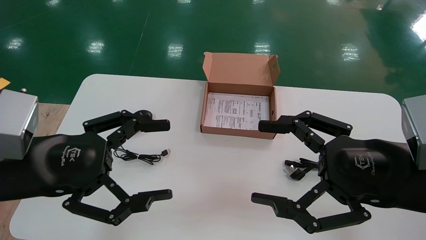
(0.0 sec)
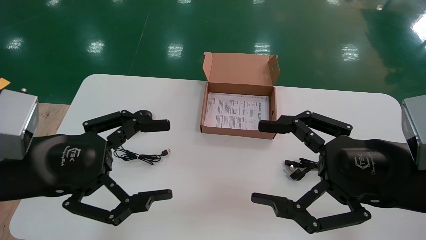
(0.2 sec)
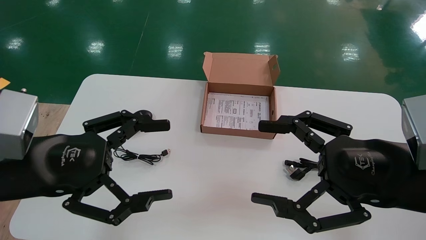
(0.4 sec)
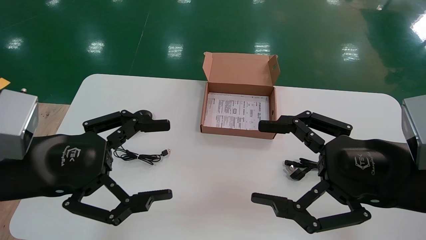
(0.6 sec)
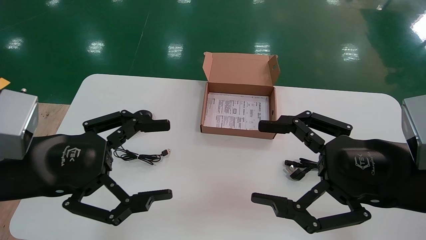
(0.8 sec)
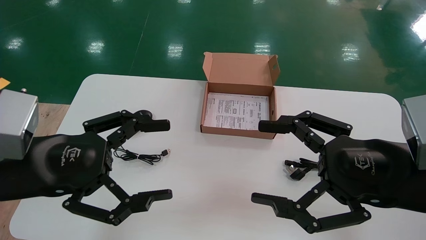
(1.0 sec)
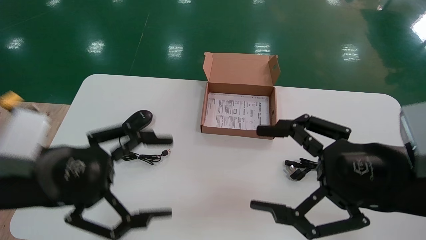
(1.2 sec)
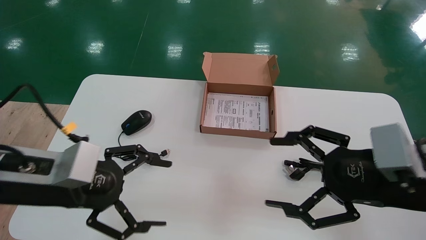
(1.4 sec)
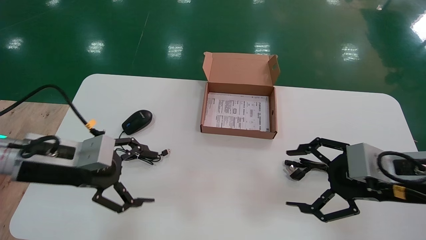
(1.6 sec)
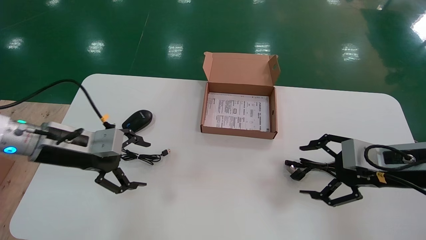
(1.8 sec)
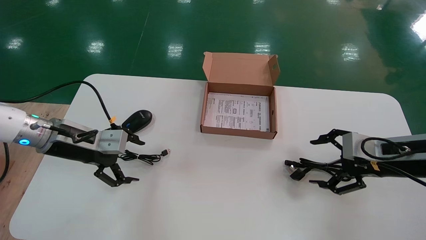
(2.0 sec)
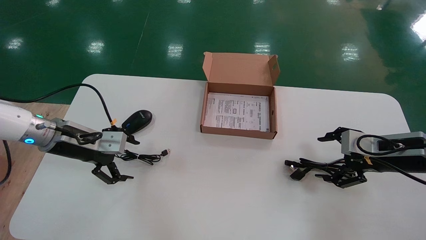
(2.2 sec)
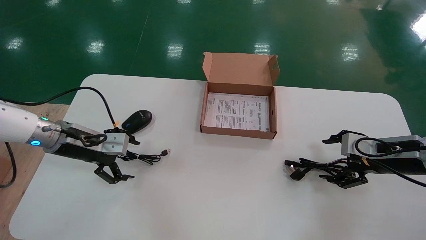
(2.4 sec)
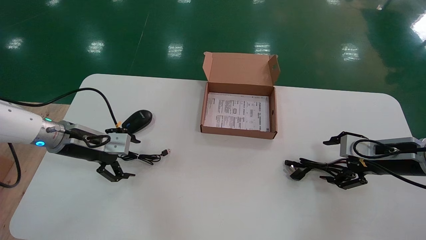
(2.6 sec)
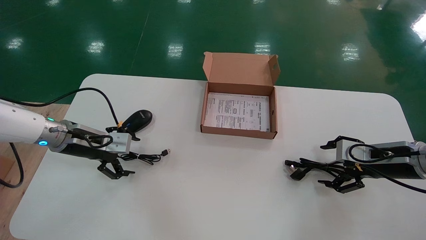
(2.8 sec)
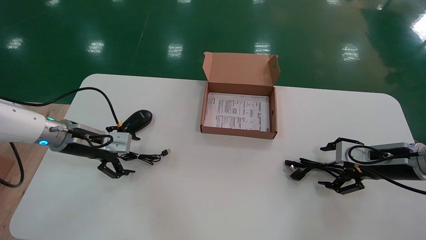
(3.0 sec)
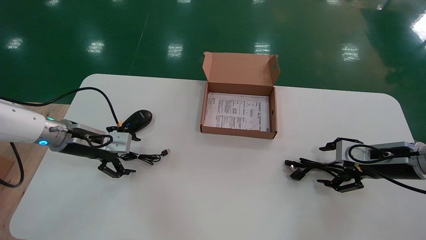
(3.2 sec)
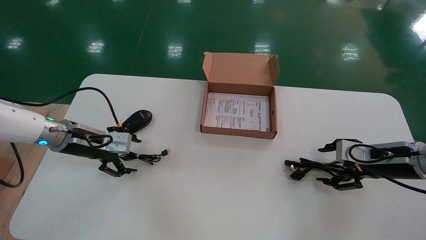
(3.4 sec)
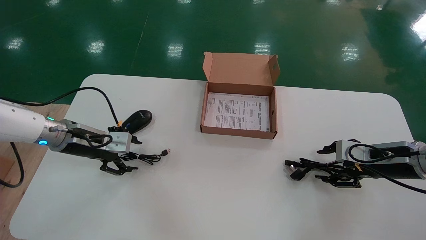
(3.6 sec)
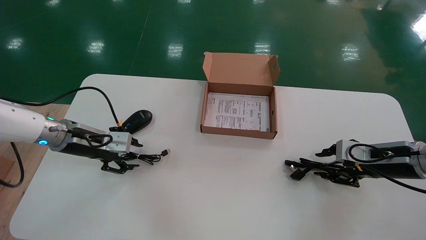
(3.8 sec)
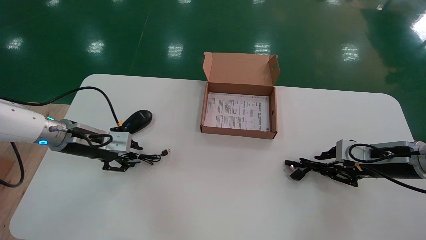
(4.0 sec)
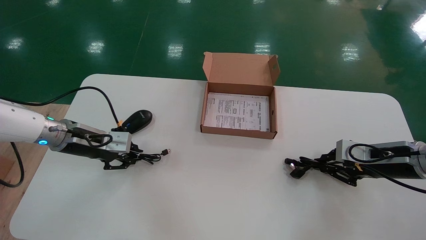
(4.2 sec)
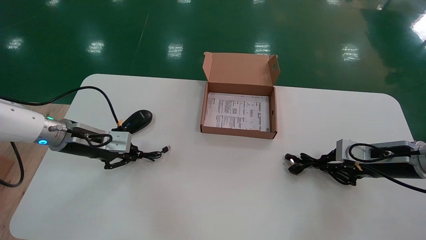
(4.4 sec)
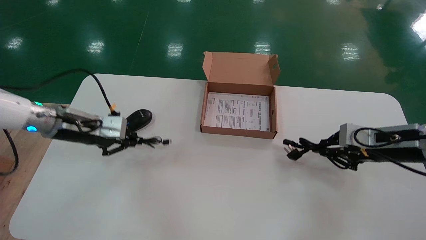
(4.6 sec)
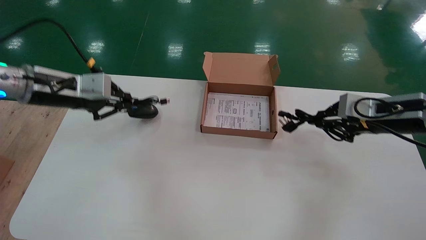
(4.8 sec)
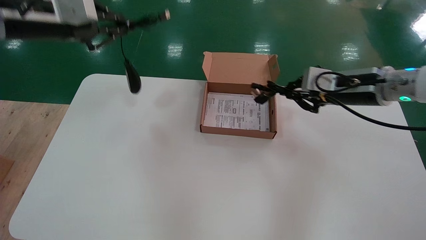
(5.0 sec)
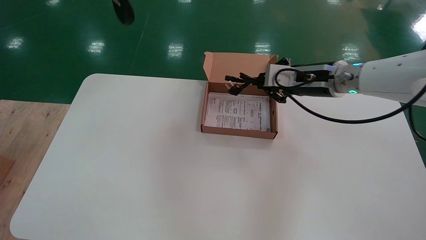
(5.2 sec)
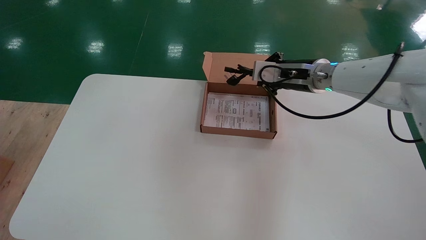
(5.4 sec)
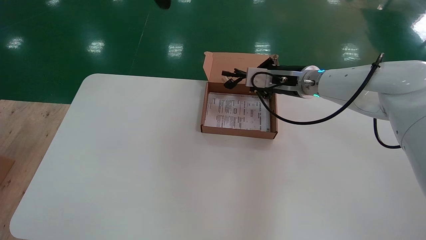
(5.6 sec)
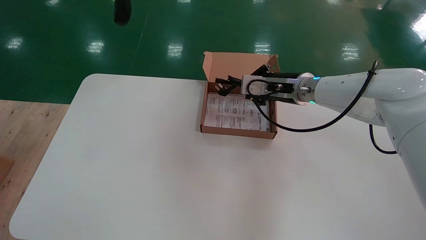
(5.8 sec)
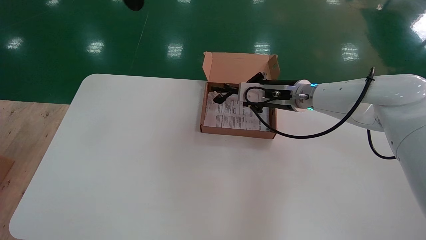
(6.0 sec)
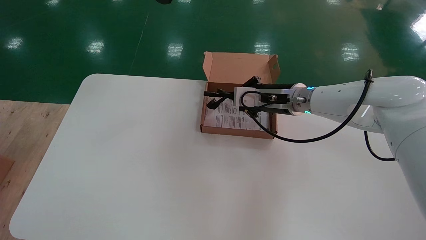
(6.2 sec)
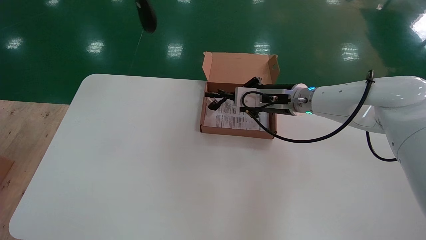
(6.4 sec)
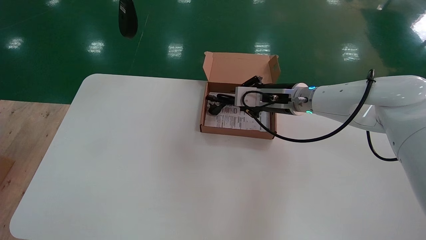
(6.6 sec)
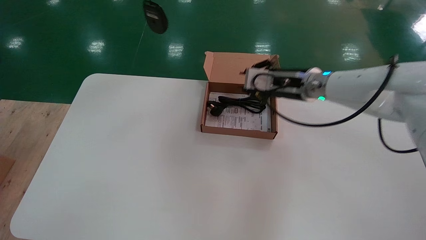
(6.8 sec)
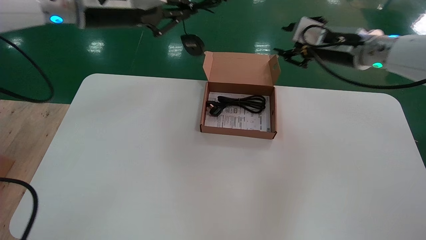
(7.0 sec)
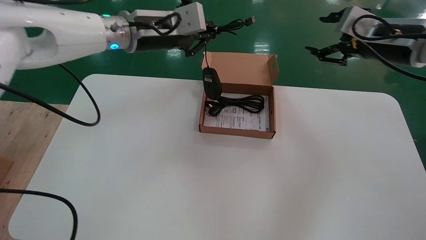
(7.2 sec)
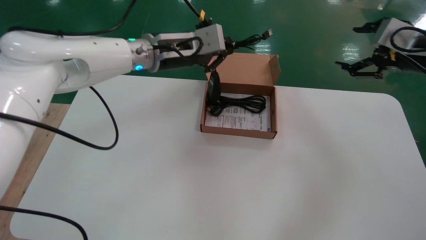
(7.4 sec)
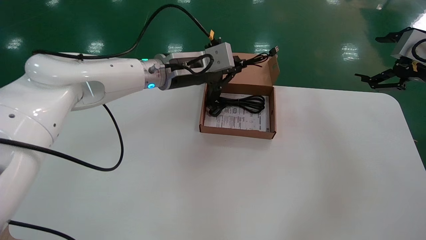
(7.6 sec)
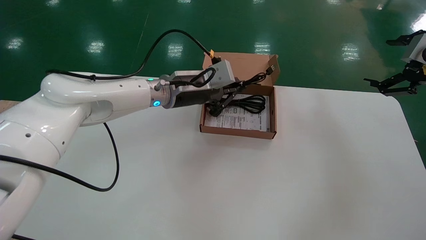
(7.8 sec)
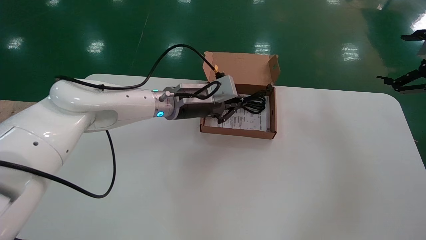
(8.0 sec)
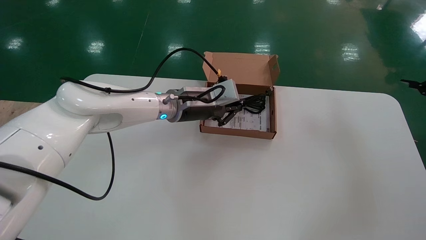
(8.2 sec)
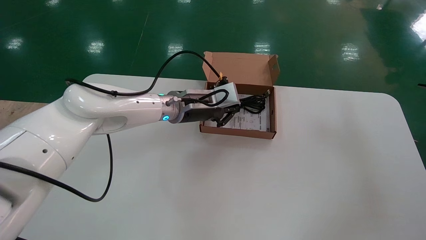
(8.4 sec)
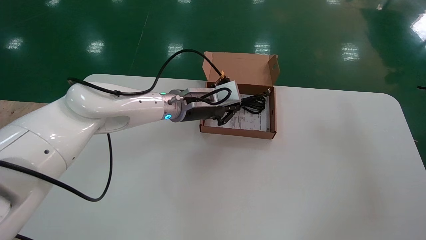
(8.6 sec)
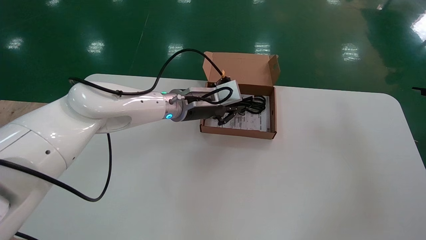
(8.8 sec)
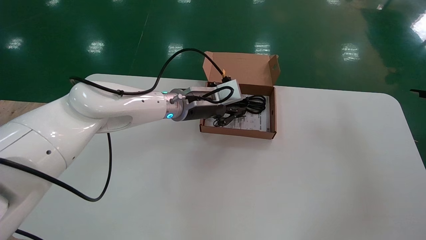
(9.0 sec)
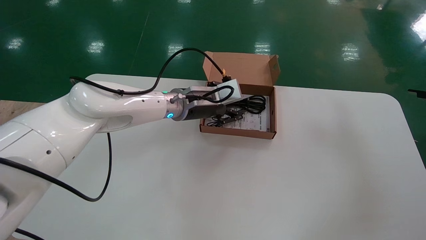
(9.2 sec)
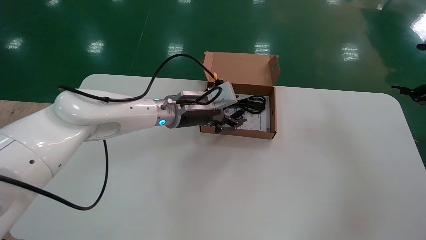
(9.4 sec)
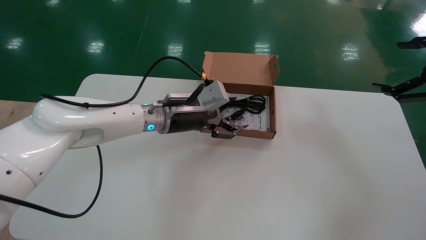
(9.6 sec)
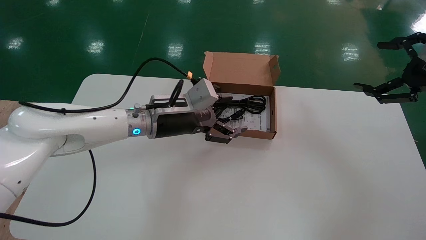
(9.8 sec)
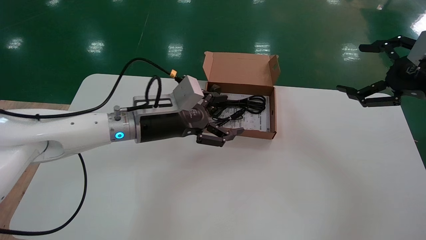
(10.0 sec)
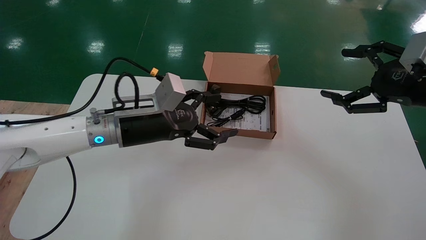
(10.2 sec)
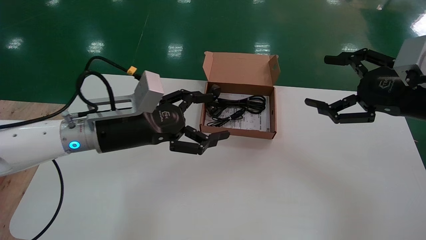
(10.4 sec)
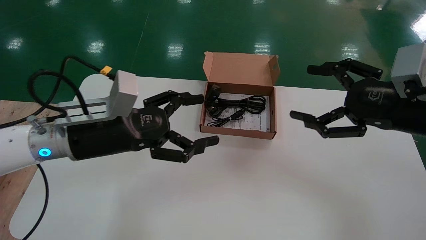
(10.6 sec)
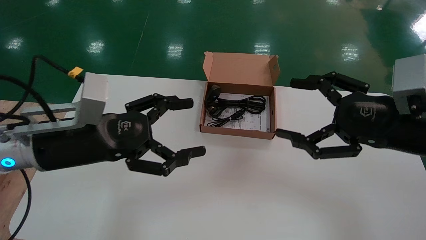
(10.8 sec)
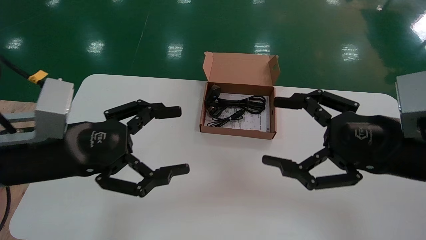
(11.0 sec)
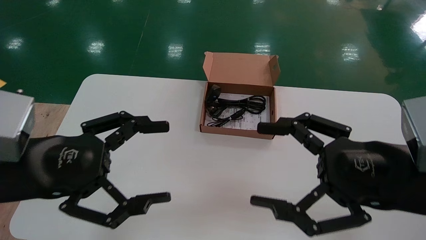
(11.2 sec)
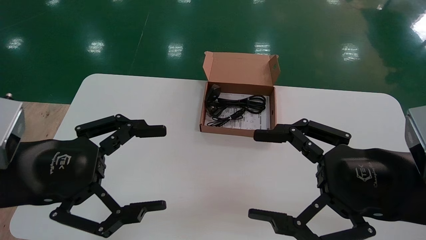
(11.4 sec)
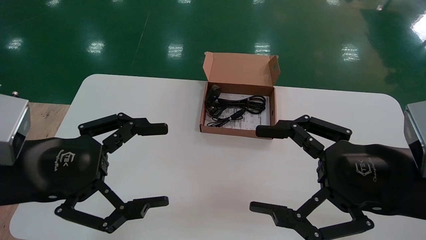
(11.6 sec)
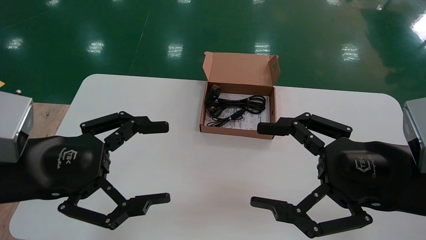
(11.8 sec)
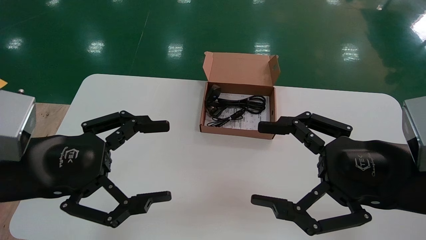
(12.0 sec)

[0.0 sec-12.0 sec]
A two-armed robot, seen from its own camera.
Step, 1.4 sec to 4.2 sec: Simultaneously pick up the mouse and power cord from the accessory packaging area.
Step, 4.4 sec to 9.4 sec: Place the mouse and power cord into the box.
0.0 sec to 1.6 sec: The left gripper is displaced forward by approximately 10 cm. Meanwhile the right gripper shifts approximately 10 cm forward and to the right.
1.6 sec to 3.0 sec: The left gripper heads forward, covering approximately 10 cm, while the right gripper travels forward, to the right and downward by roughly 15 cm.
3.0 sec to 4.4 sec: The left gripper closes; the right gripper closes.
4.4 sec to 6.0 sec: The left gripper heads upward, covering some 35 cm. Meanwhile the right gripper shifts about 25 cm to the left and forward.
6.0 sec to 7.6 sec: The left gripper moves downward, to the right and forward, about 30 cm, while the right gripper travels to the right by approximately 25 cm, and opens its fingers.
7.6 sec to 9.0 sec: The right gripper goes roughly 10 cm to the right and backward. The left gripper is displaced downward by approximately 5 cm.
9.0 sec to 10.4 sec: The right gripper is displaced to the left by some 15 cm. Meanwhile the left gripper goes some 20 cm backward and to the left, and opens its fingers.
10.4 sec to 12.0 sec: The right gripper heads backward, to the left and downward, covering approximately 15 cm. Meanwhile the left gripper goes approximately 15 cm backward and to the left.

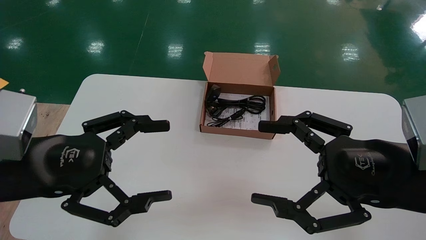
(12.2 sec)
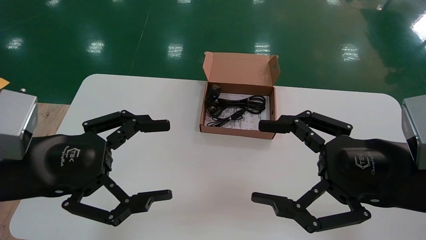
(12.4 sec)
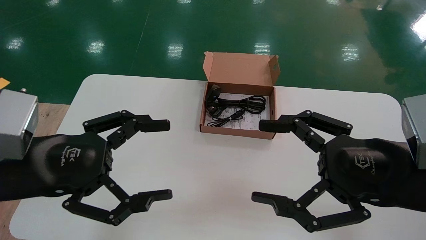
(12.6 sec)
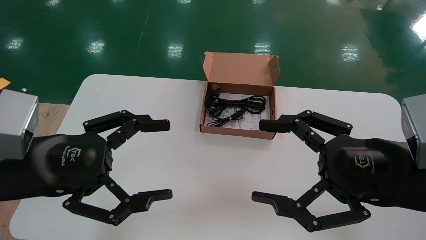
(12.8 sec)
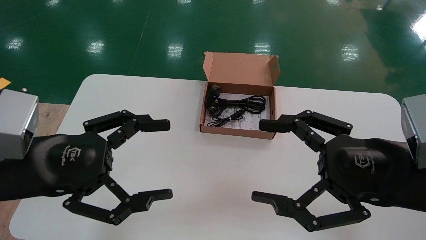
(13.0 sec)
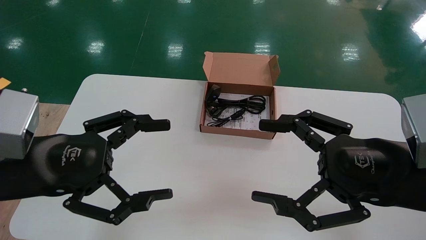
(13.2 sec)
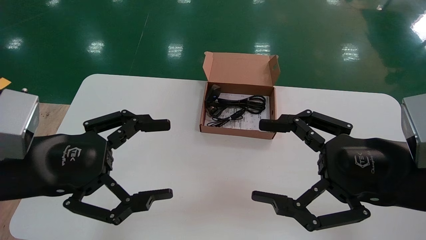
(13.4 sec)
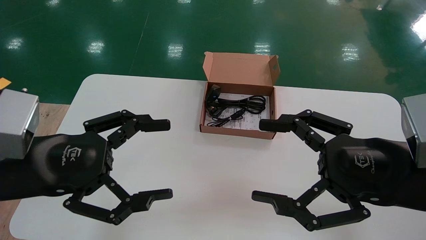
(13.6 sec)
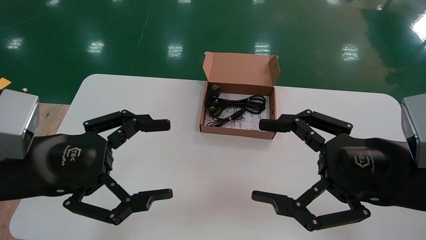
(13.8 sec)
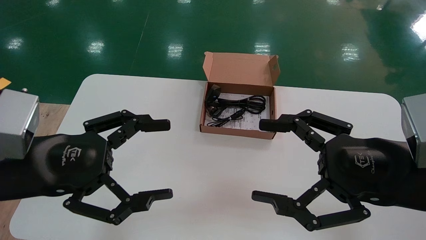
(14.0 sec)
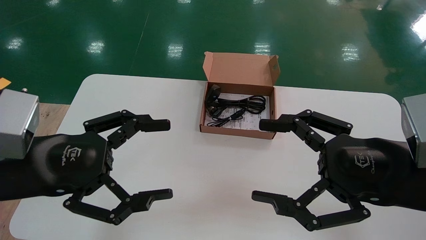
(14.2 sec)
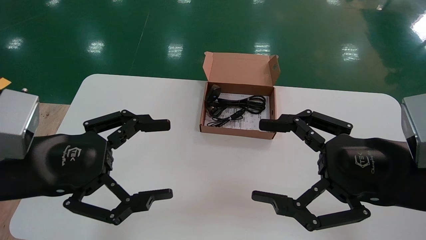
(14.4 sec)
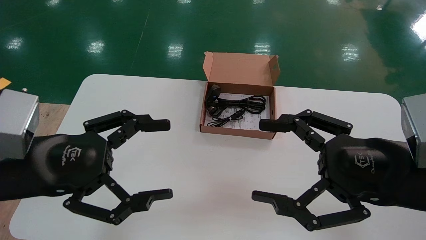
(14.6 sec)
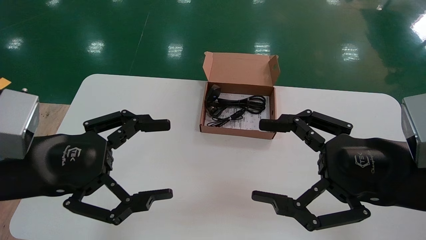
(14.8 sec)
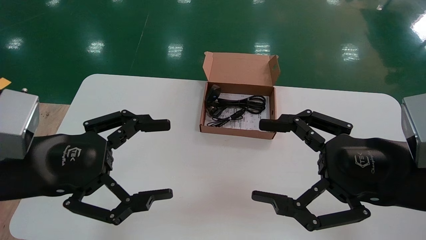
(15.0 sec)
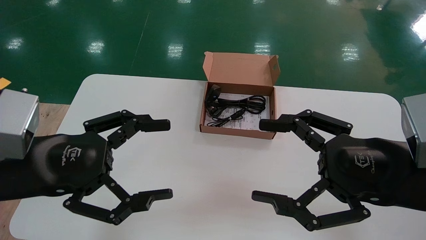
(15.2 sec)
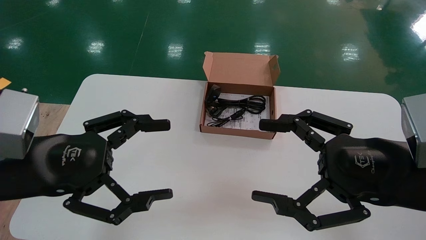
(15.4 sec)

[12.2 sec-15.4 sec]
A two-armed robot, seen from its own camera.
12.2 sec to 15.4 sec: Both grippers stay put.
